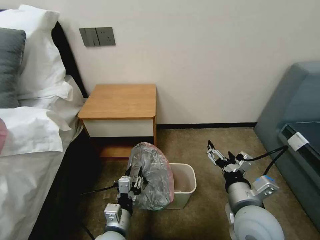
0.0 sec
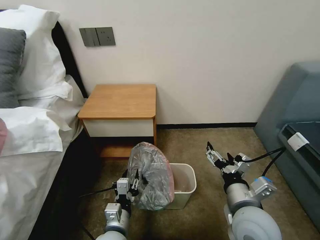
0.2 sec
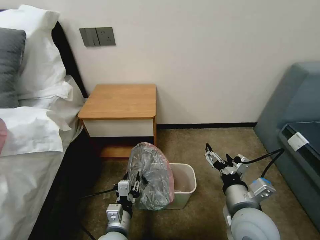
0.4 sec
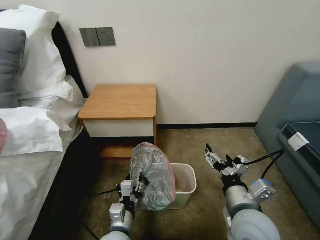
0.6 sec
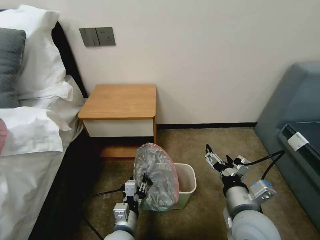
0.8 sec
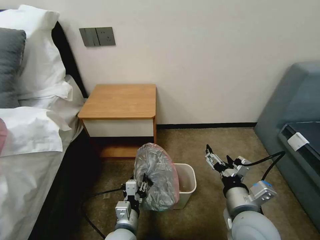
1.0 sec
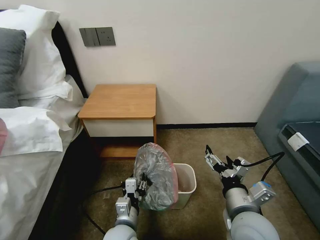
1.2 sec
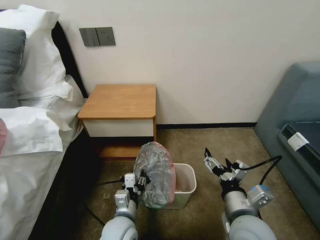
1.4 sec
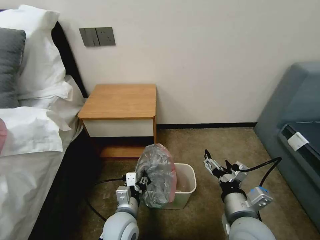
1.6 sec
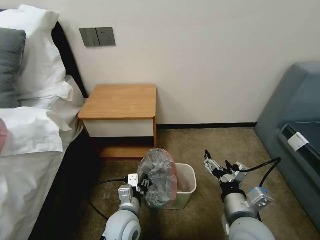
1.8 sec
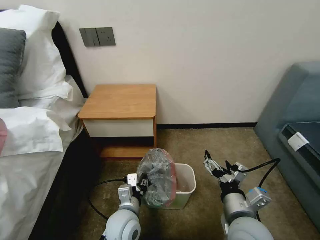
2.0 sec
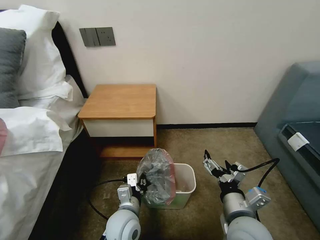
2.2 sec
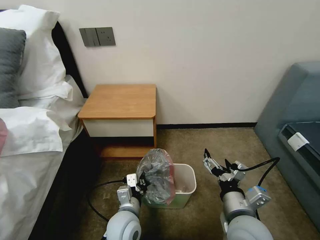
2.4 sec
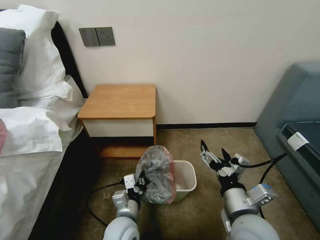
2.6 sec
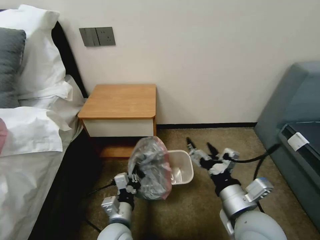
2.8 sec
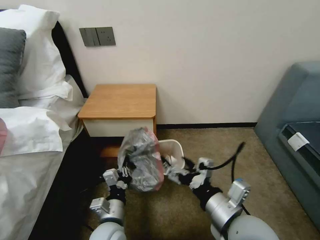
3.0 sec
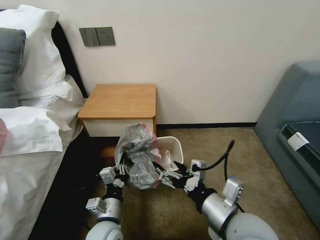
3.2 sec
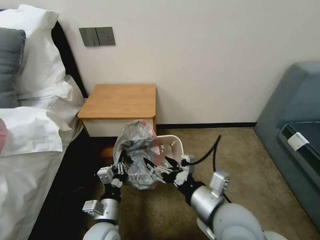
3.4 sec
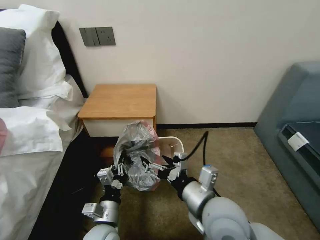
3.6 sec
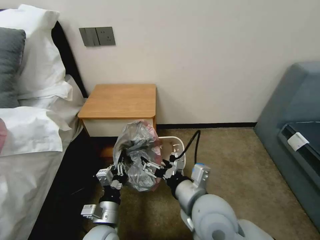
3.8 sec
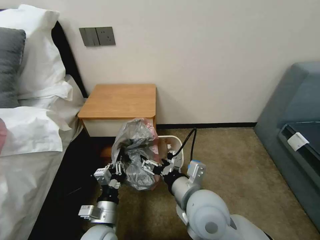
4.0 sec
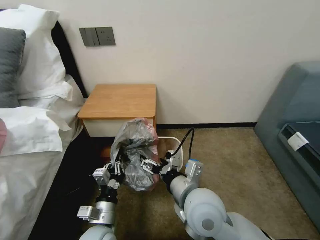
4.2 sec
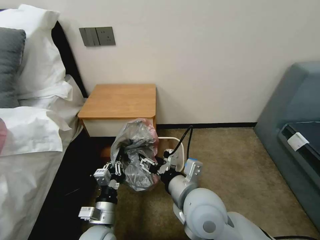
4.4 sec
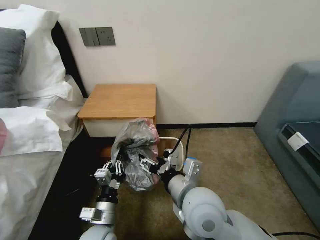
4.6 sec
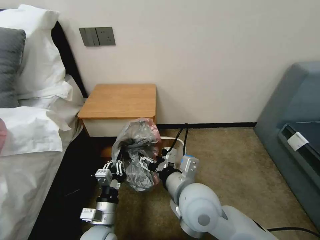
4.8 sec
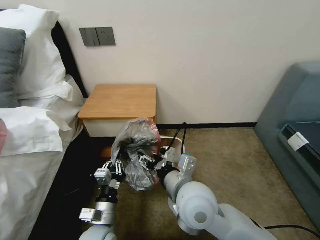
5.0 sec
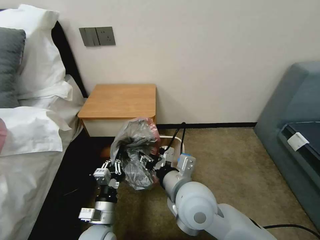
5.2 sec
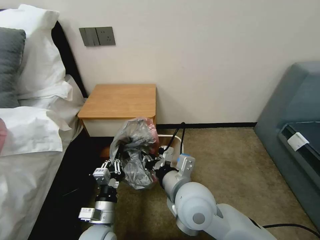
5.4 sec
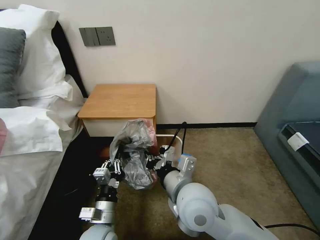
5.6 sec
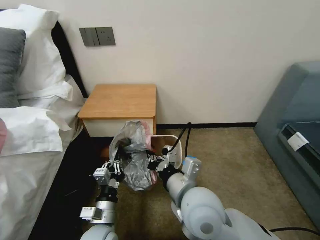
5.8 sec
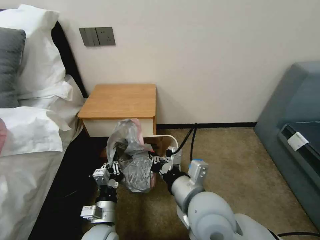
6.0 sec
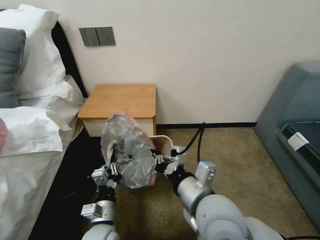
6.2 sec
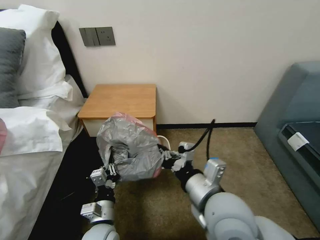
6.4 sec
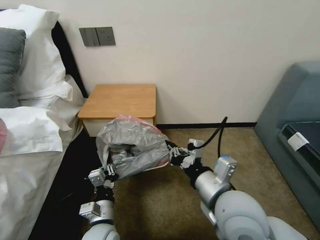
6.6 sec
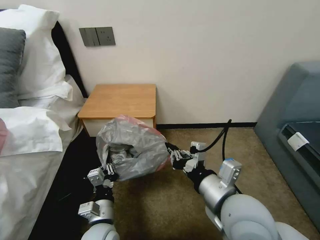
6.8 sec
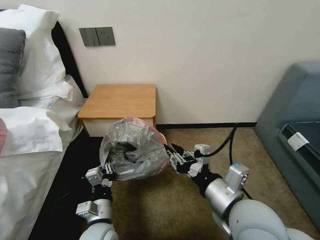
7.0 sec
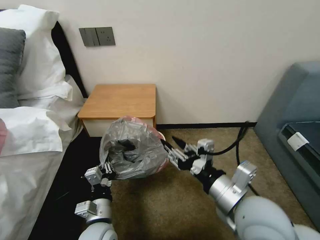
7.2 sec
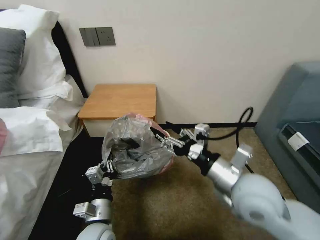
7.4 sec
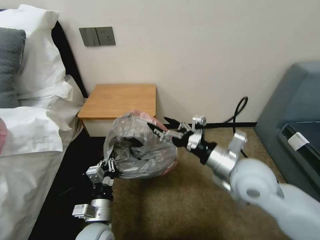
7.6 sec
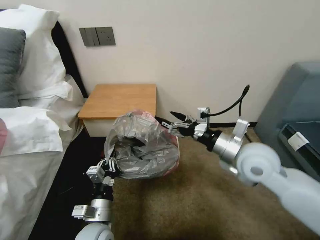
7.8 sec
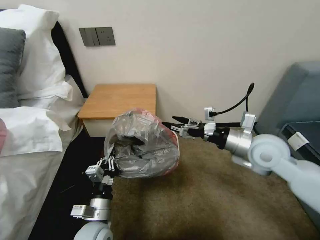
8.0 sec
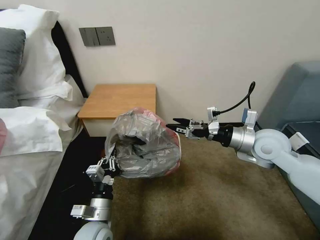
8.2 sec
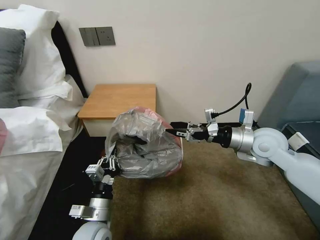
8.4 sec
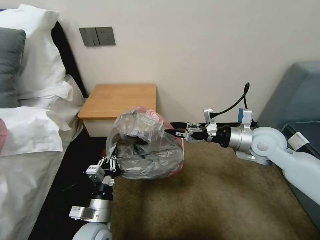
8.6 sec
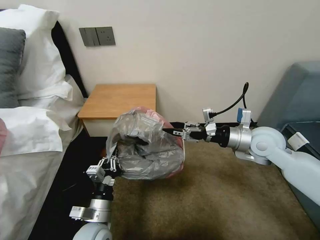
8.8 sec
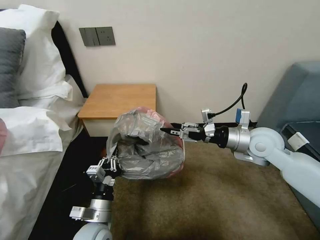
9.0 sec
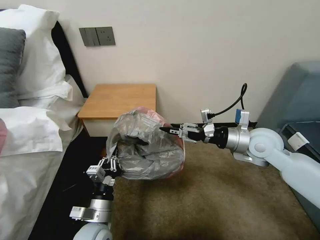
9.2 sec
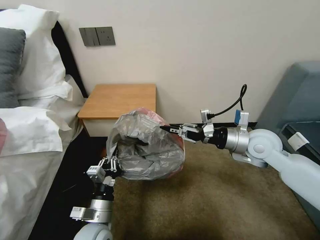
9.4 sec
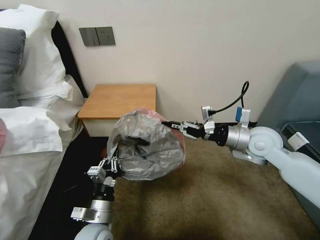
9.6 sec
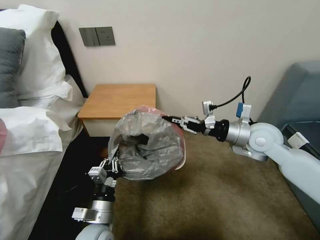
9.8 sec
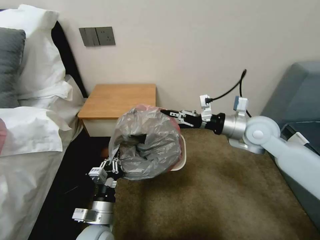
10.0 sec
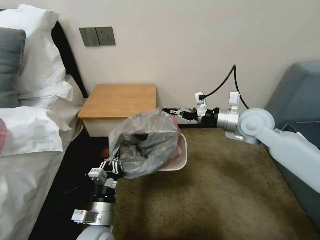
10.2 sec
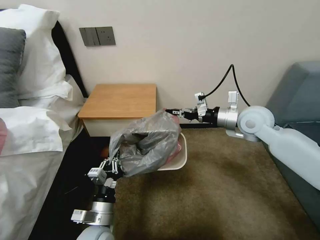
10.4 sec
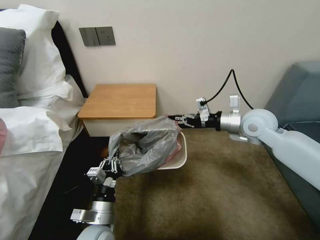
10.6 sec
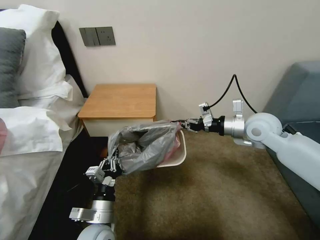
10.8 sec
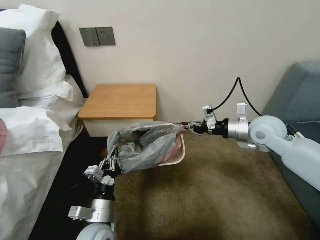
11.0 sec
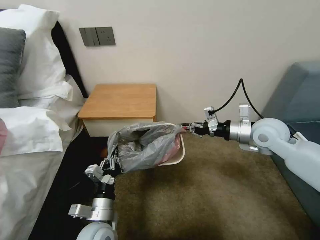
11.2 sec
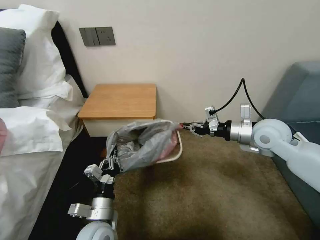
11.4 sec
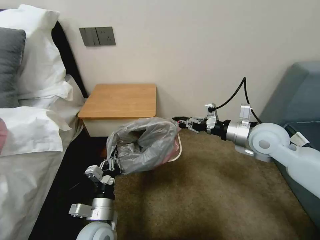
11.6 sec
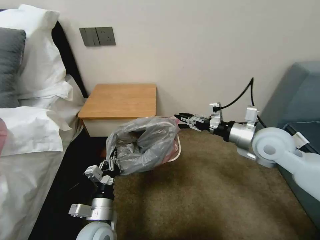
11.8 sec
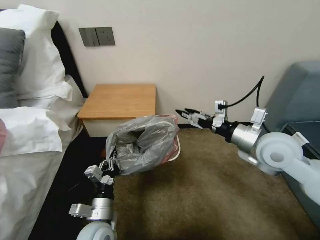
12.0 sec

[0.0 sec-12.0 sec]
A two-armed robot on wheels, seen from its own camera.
Task of the whole recording: Pick up the garbage bag from the table and place it over the trash can.
0.0 sec to 1.6 sec: The left gripper moves some 5 cm.
1.6 sec to 3.0 sec: The left gripper closes its fingers. The right gripper ends up approximately 5 cm from where it was.
3.0 sec to 4.4 sec: The right gripper heads to the left and forward, covering about 10 cm.
4.4 sec to 6.0 sec: The right gripper closes.
6.0 sec to 7.6 sec: The right gripper goes approximately 15 cm to the right and forward, and opens up.
7.6 sec to 9.0 sec: The right gripper travels forward and to the right by approximately 10 cm.
9.0 sec to 10.4 sec: The right gripper heads forward, covering roughly 5 cm, and closes its fingers.
10.4 sec to 12.0 sec: The right gripper travels backward by some 10 cm, and opens its fingers.

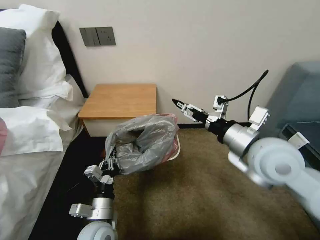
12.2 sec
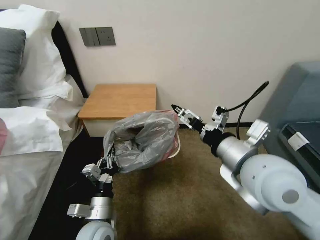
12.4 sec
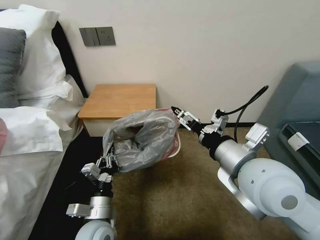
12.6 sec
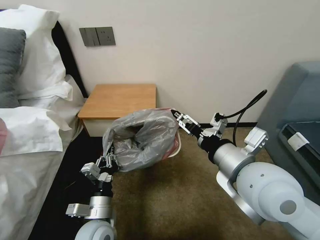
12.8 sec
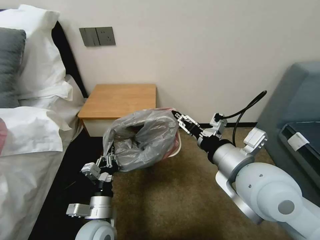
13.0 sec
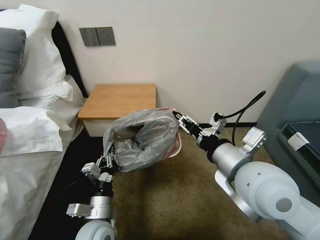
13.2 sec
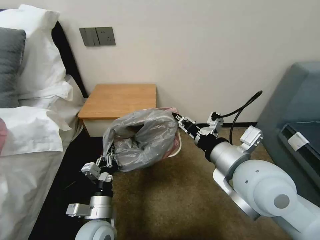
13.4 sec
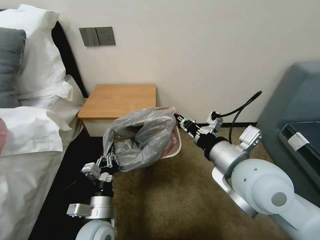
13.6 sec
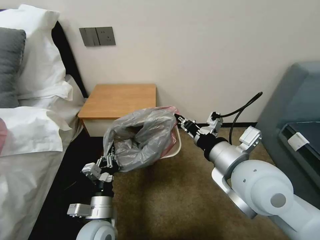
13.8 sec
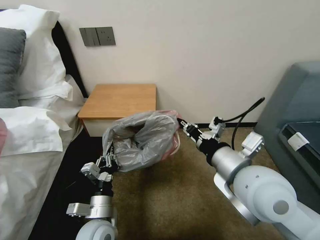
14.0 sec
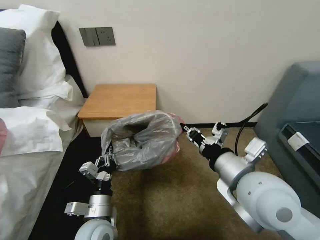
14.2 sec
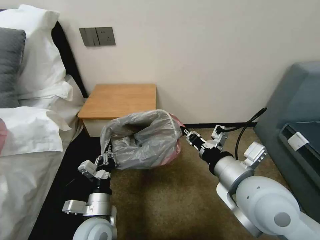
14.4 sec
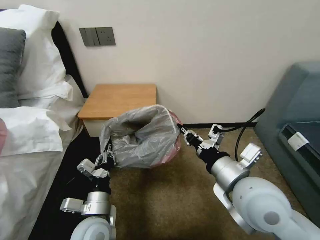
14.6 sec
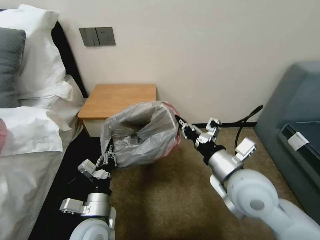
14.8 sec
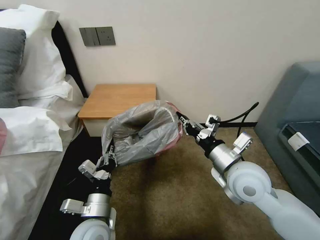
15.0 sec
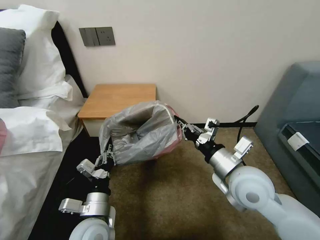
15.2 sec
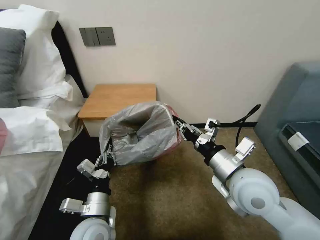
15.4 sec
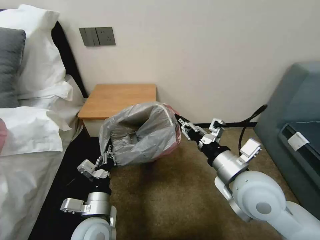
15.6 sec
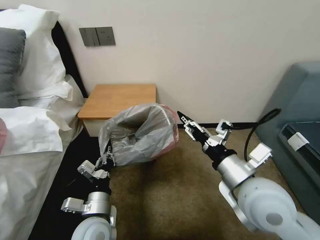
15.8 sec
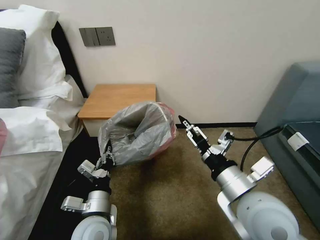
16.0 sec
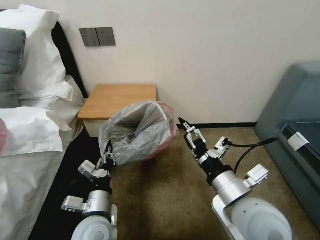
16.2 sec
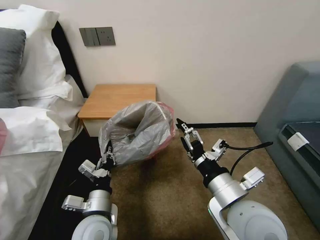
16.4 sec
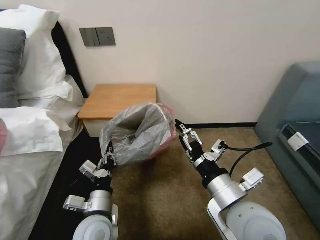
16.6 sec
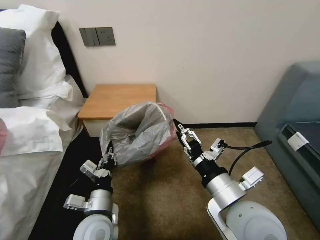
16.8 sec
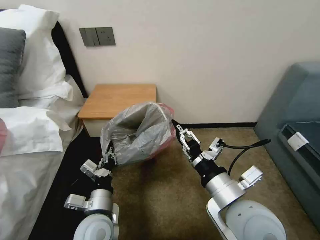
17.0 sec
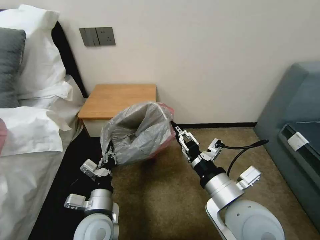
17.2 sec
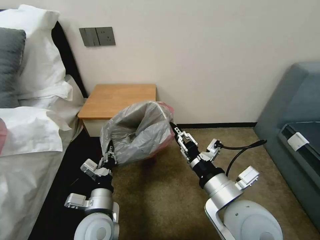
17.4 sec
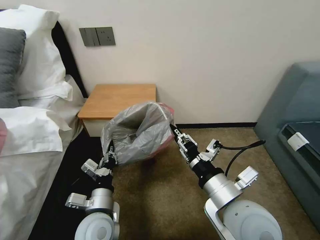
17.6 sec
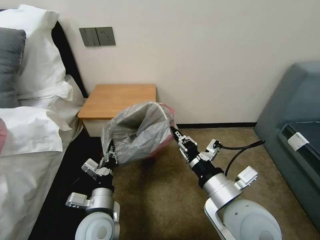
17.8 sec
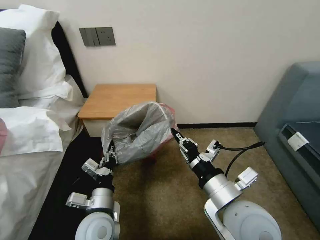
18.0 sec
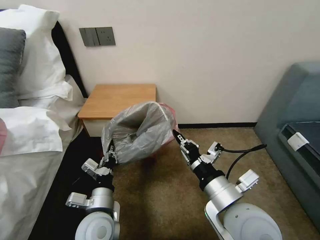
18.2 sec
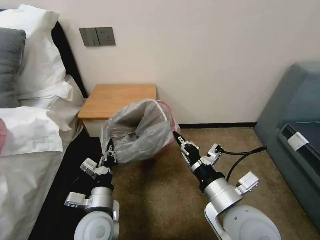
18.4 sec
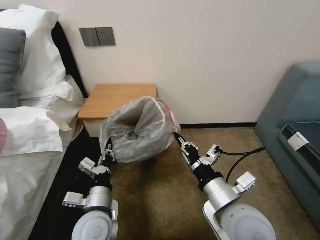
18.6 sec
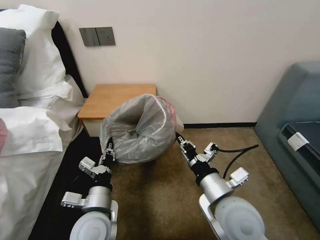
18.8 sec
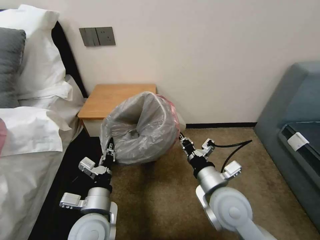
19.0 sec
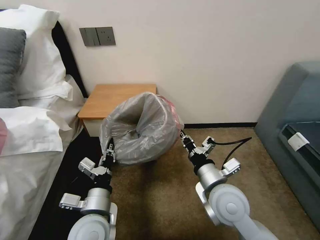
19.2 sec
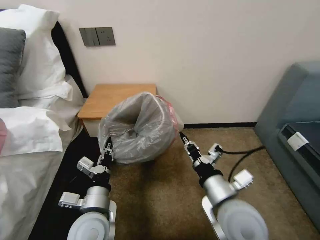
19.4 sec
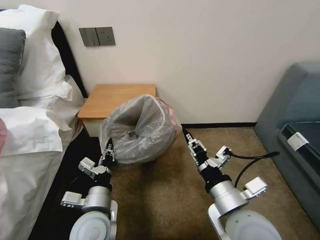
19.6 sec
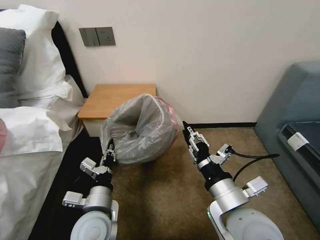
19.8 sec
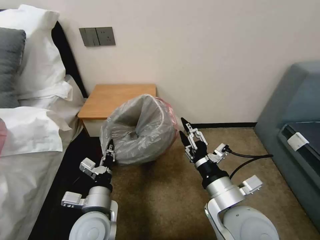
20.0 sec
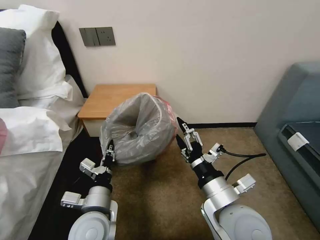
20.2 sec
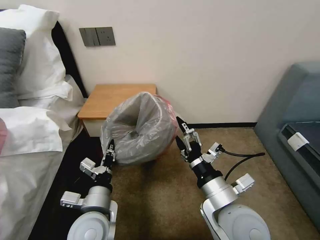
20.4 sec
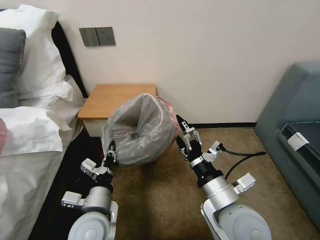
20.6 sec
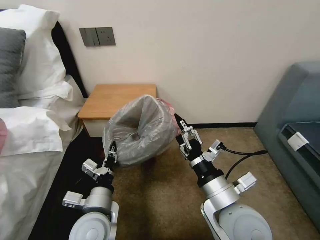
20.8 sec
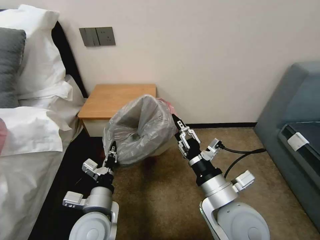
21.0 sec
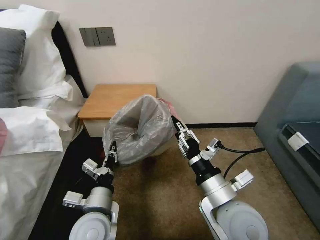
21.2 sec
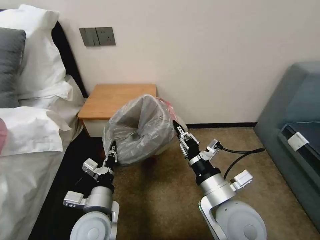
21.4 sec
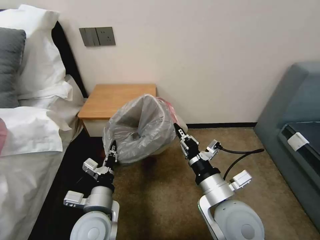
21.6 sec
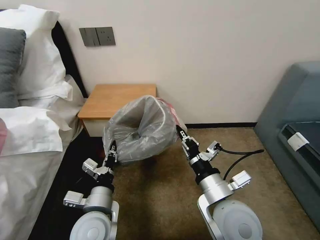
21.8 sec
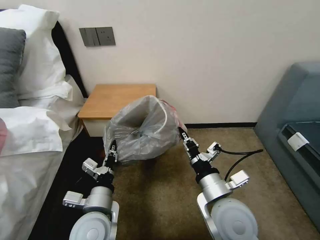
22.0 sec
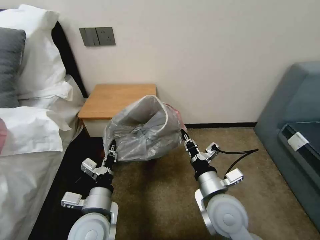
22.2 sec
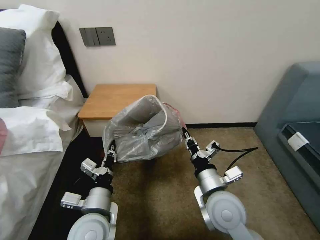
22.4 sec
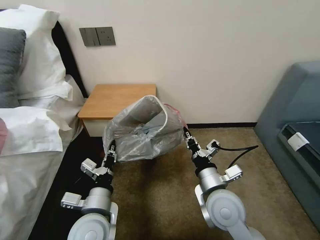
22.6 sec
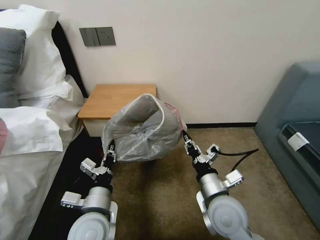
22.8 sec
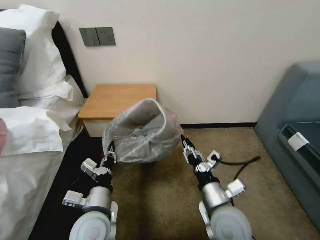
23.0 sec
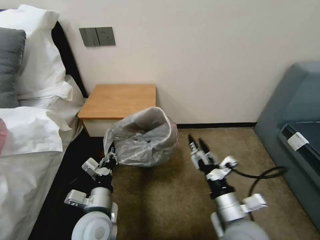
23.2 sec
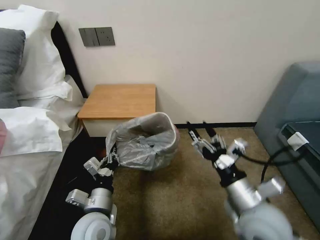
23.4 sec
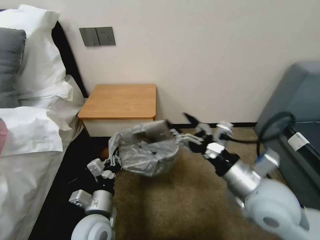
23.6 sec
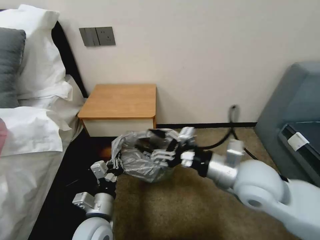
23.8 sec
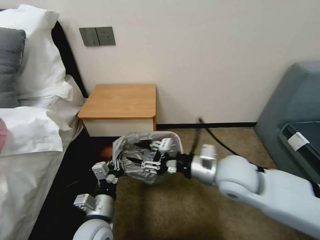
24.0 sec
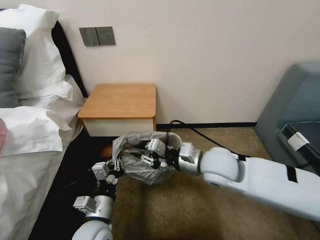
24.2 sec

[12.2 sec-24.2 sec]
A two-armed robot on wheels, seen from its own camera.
Task of the whole recording: Pick up the garbage bag from the table and place it over the trash can.
12.2 sec to 13.8 sec: The right gripper changes place by approximately 5 cm, and closes up.
13.8 sec to 15.2 sec: The right gripper shifts approximately 10 cm downward.
15.2 sec to 16.6 sec: The right gripper moves backward, about 10 cm, and opens up.
16.6 sec to 18.2 sec: The right gripper closes up.
18.2 sec to 19.8 sec: The right gripper opens.
19.8 sec to 21.2 sec: The right gripper opens, then closes again.
21.2 sec to 22.6 sec: The right gripper moves downward, roughly 5 cm, and closes its fingers.
22.6 sec to 24.2 sec: The right gripper shifts roughly 10 cm forward and upward, and opens, then closes once more.
